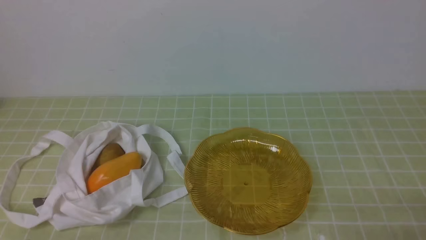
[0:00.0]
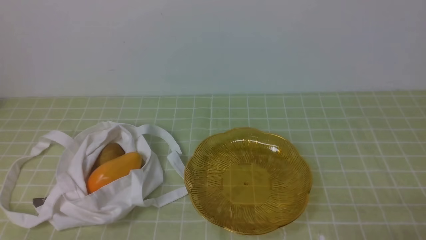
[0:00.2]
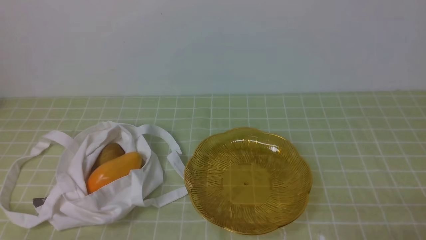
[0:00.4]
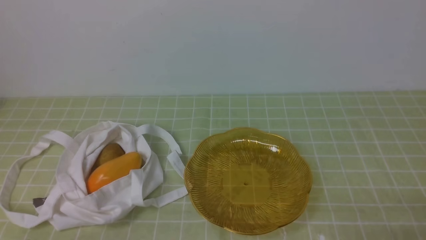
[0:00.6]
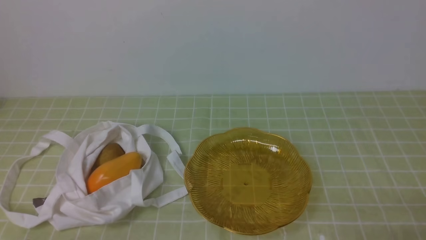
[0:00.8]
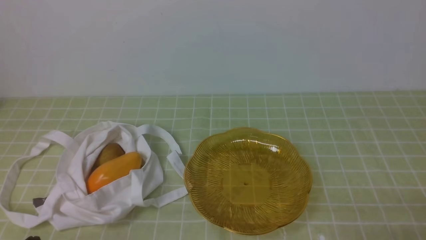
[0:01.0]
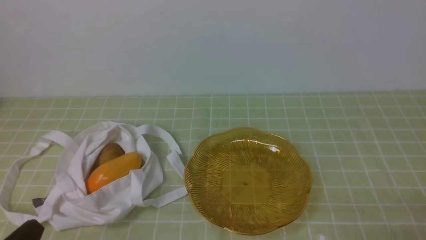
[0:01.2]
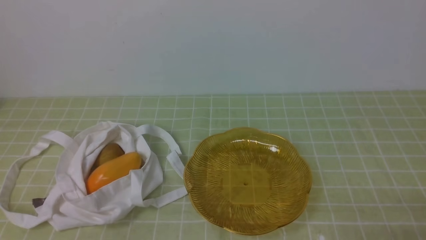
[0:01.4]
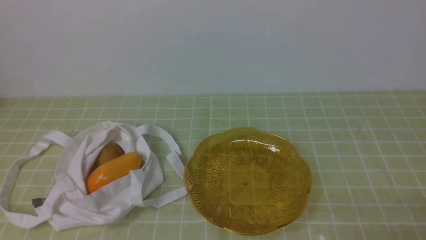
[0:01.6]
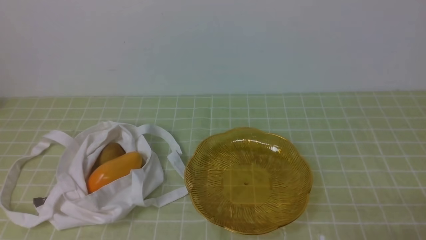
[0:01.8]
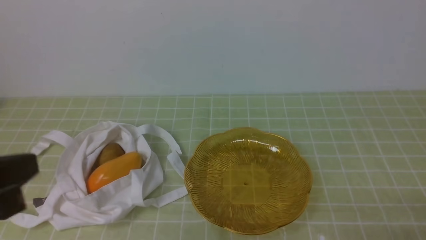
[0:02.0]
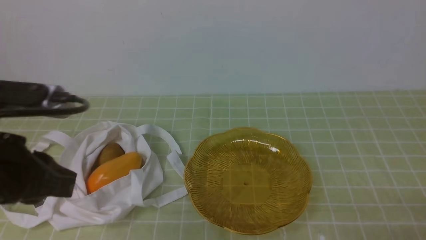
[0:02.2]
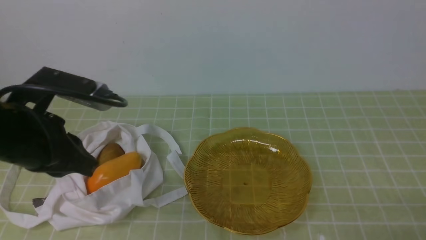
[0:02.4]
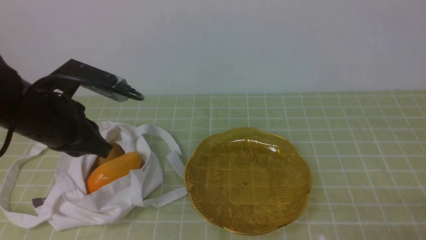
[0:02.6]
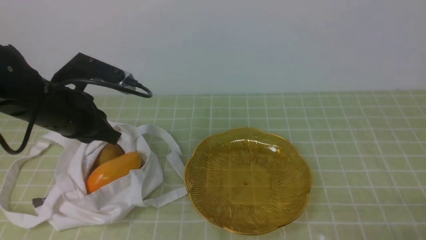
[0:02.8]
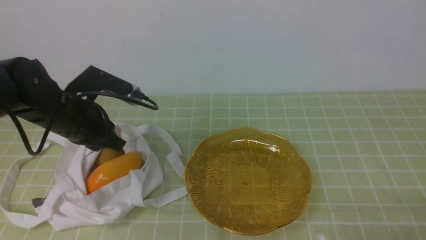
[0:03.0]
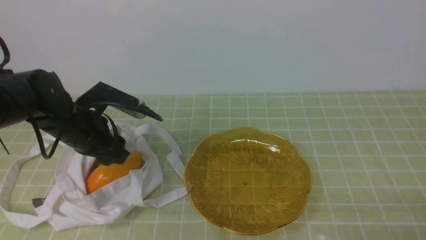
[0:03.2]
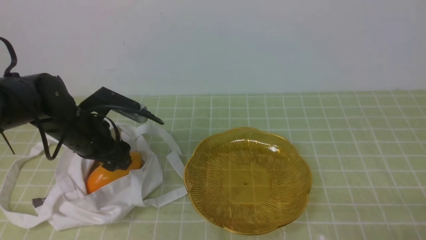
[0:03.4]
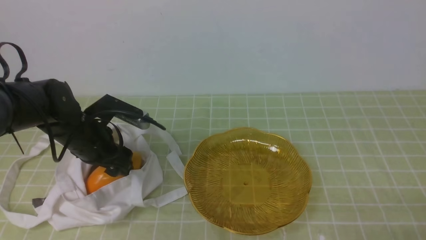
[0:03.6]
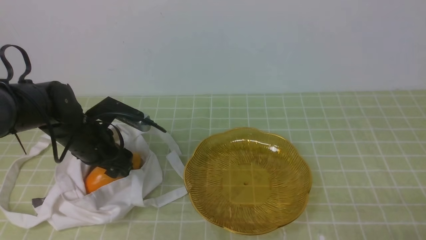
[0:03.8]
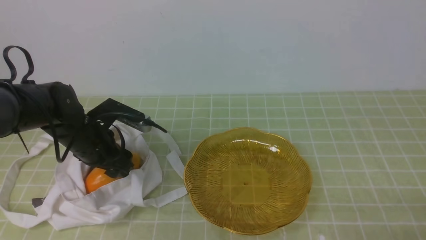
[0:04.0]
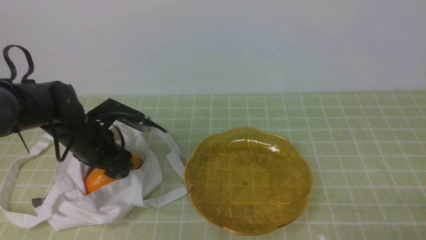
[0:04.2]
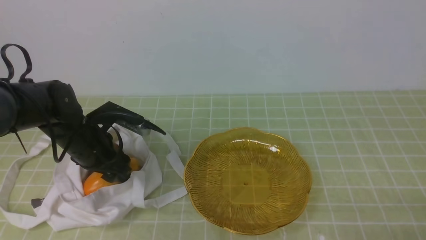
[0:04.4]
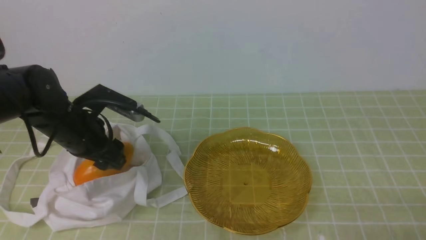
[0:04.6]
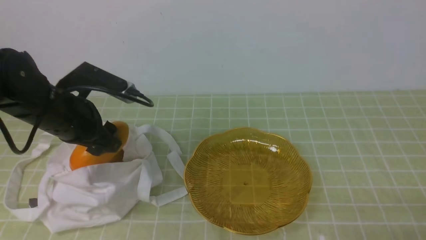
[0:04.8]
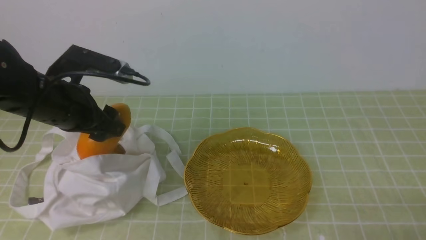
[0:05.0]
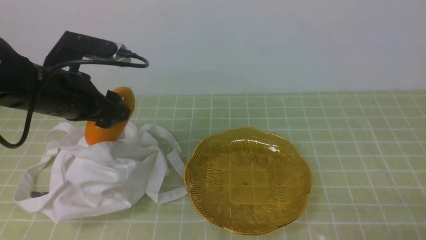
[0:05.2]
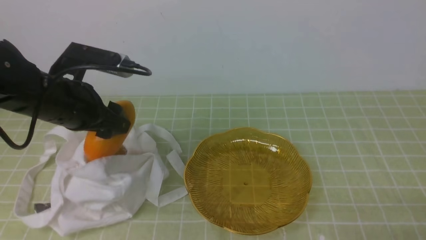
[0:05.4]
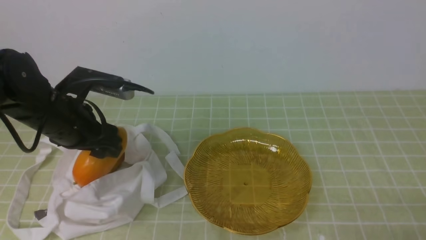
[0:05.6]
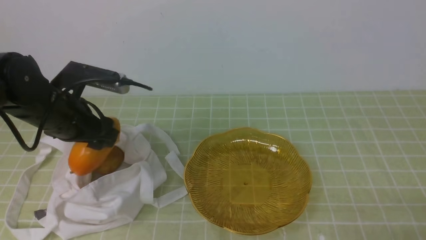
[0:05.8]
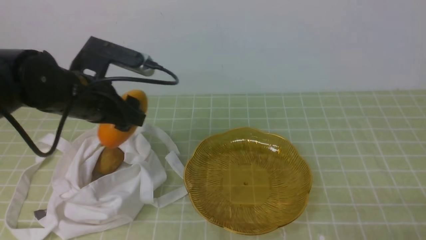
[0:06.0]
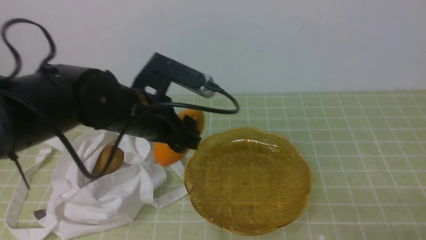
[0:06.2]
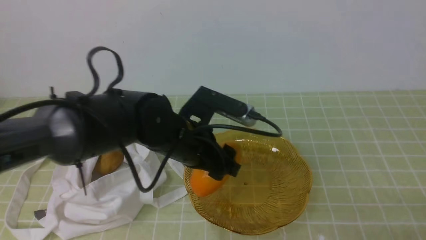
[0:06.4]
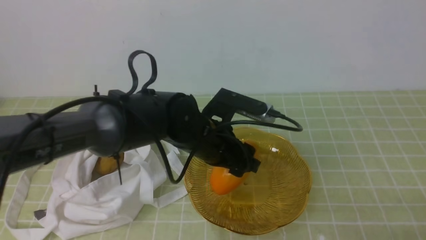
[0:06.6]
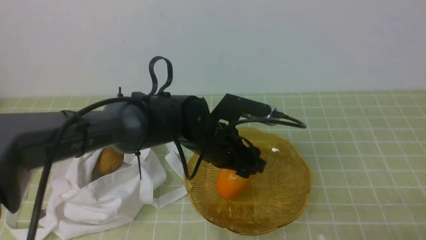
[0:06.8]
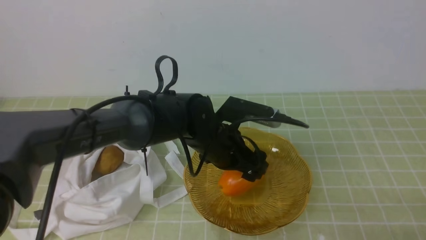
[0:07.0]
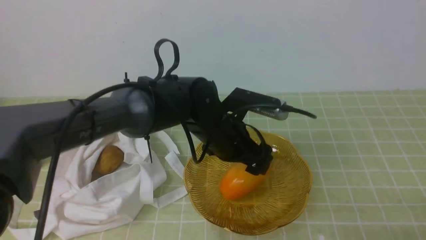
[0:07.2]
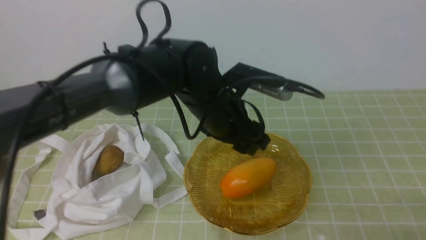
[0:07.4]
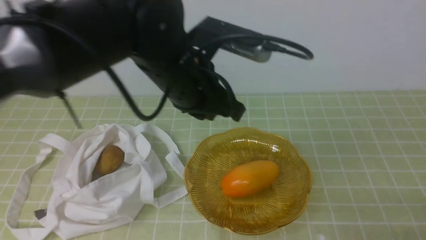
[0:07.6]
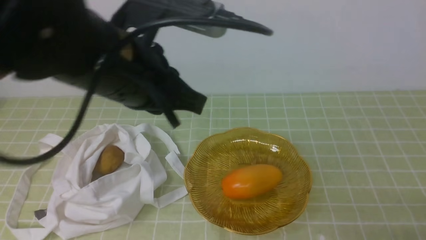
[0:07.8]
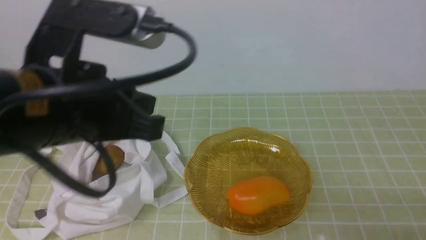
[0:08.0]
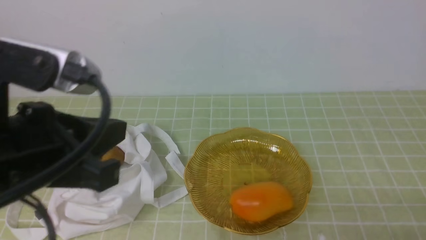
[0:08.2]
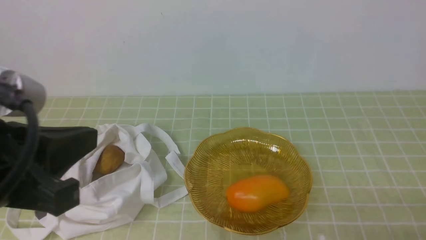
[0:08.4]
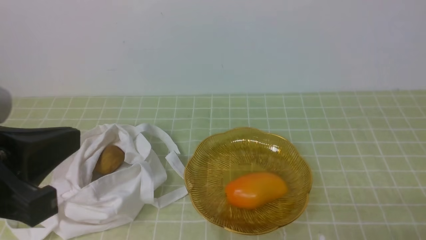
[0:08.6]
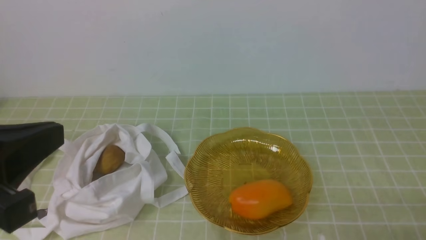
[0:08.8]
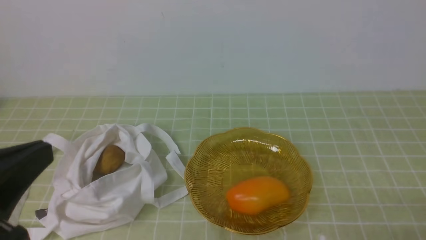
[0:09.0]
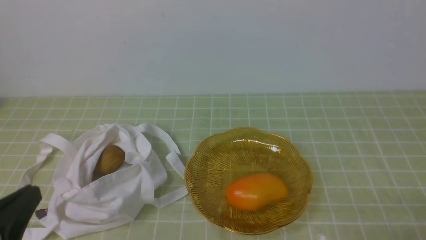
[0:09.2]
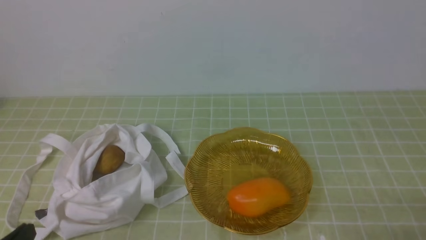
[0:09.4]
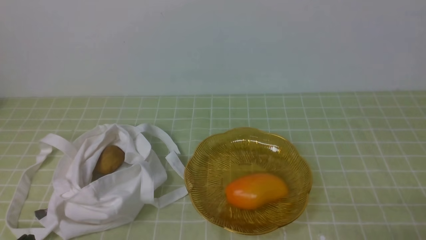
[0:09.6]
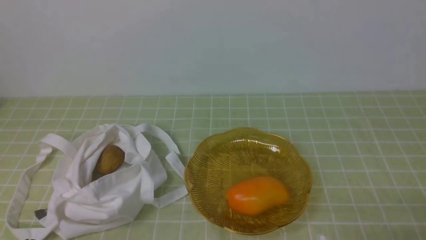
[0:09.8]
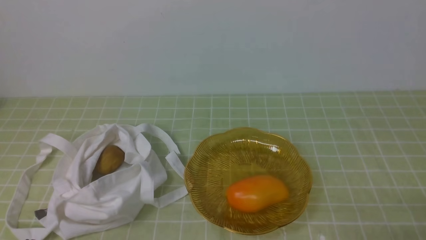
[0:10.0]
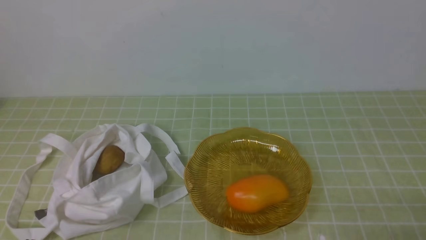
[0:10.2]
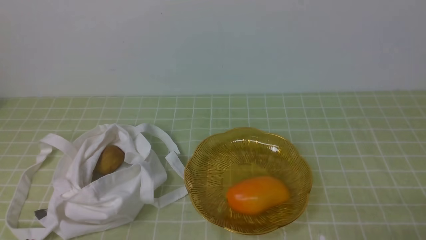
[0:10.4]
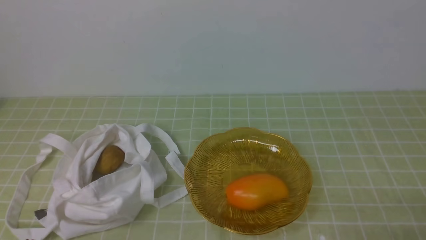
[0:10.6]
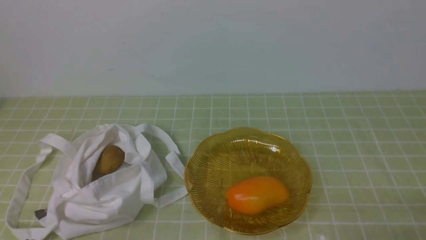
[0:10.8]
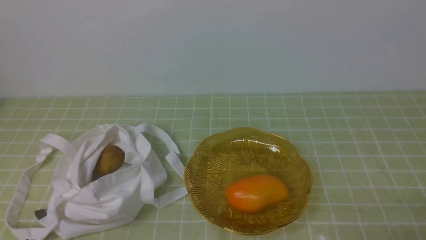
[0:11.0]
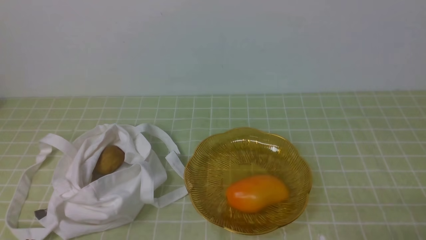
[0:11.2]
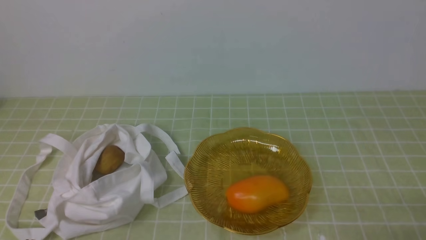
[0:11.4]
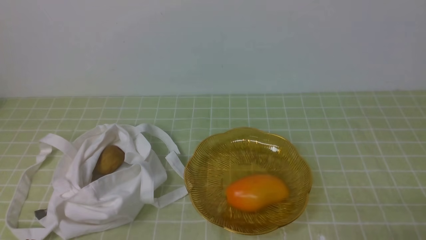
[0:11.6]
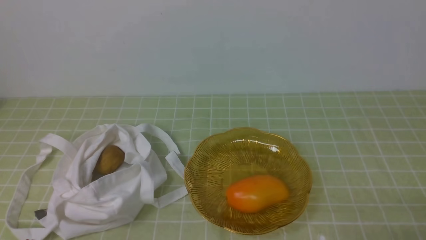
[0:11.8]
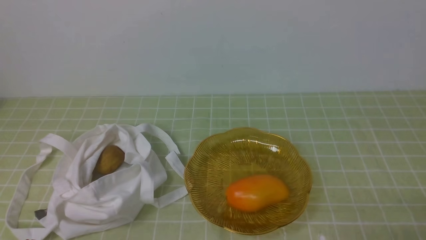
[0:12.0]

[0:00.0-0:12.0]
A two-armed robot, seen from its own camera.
Step, 0:00.0 to 0:04.6: use the left arm to grab a mango from the bag.
Step, 0:04.8 to 0:07.0: use the left arm to put the mango into the empty plate on the right.
0:01.6 to 0:03.0: The left gripper is displaced forward by about 25 cm.
0:03.0 to 0:04.4: The left gripper goes some 10 cm downward, and opens up.
0:04.4 to 0:06.0: The left gripper is displaced upward by roughly 10 cm.
0:06.0 to 0:07.6: The left gripper is displaced to the right by about 15 cm, and closes up.
0:07.6 to 0:09.0: The left gripper heads backward and to the left, covering roughly 30 cm, and closes its fingers.
0:09.0 to 0:10.4: The left gripper is displaced downward by about 20 cm.
0:10.4 to 0:12.0: Both grippers stay put.

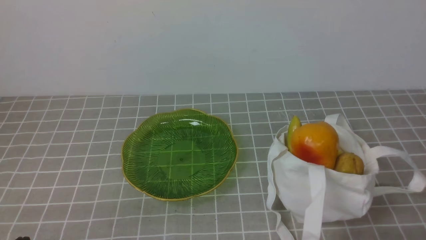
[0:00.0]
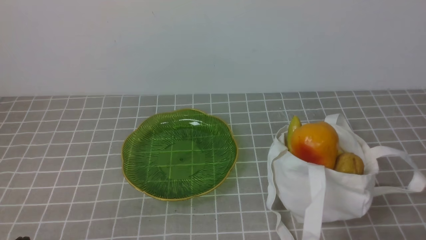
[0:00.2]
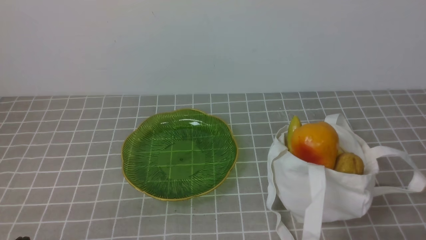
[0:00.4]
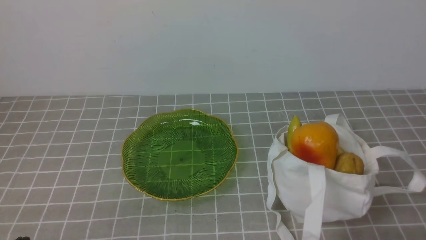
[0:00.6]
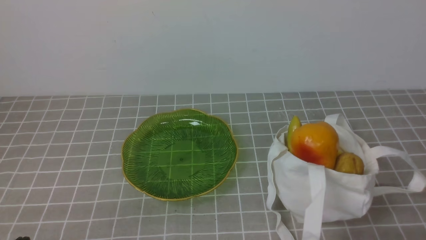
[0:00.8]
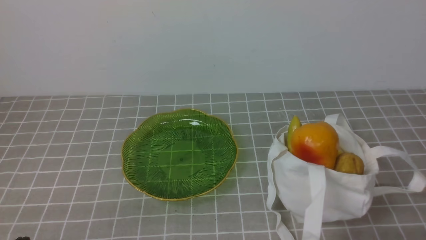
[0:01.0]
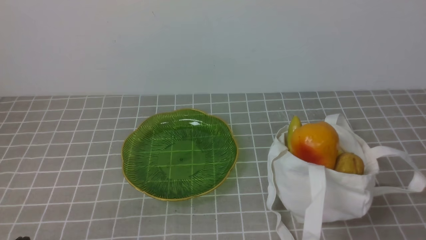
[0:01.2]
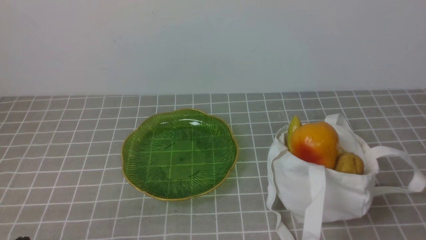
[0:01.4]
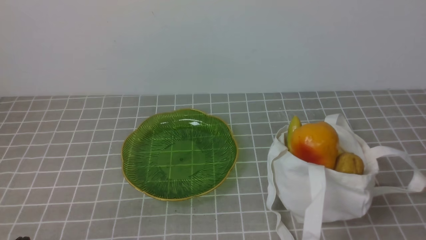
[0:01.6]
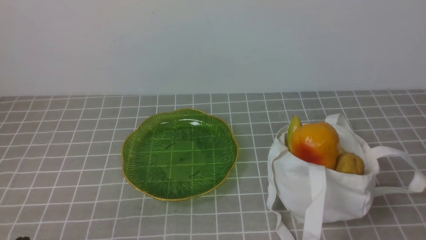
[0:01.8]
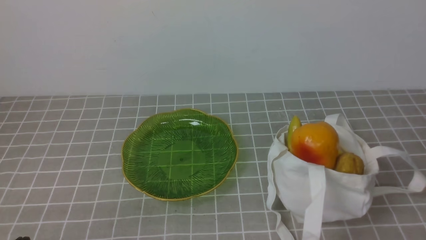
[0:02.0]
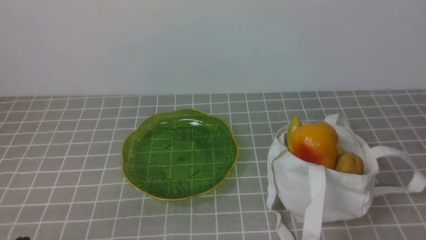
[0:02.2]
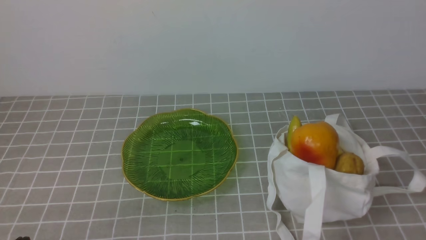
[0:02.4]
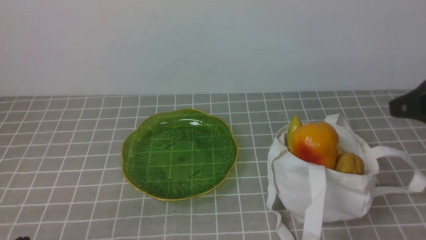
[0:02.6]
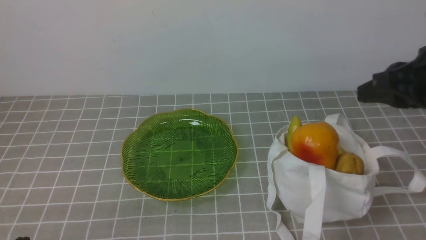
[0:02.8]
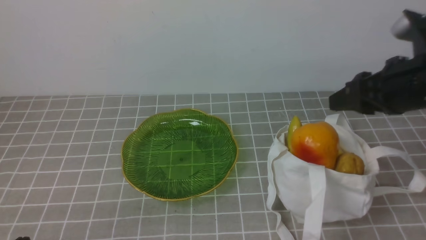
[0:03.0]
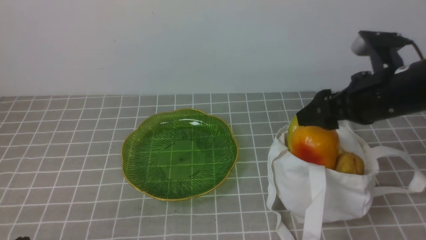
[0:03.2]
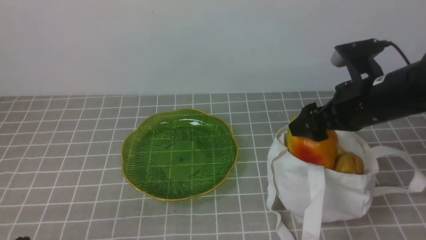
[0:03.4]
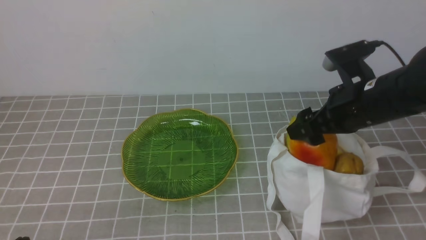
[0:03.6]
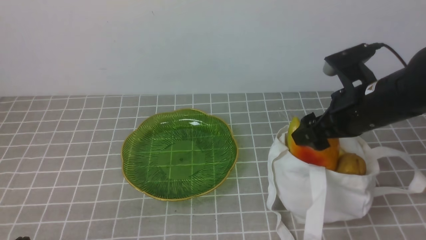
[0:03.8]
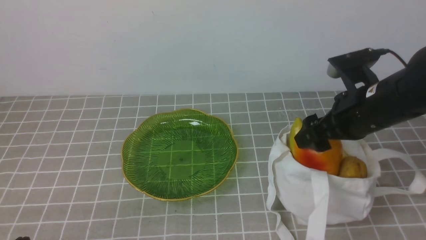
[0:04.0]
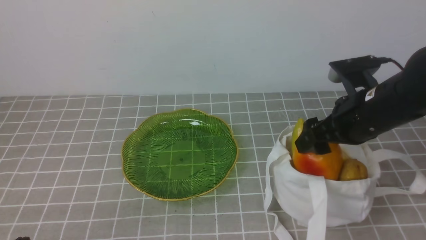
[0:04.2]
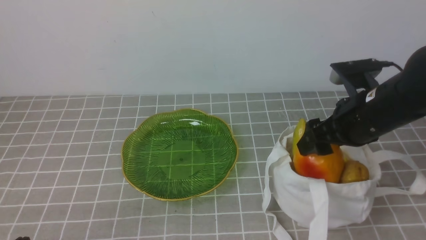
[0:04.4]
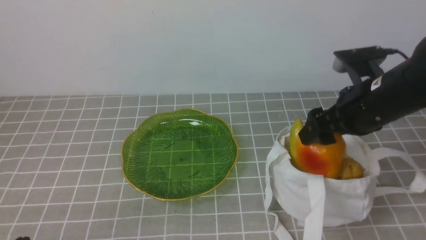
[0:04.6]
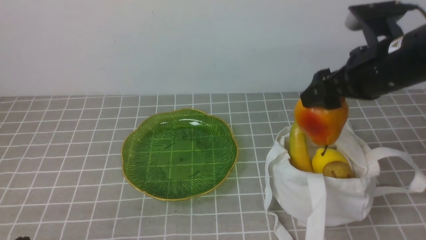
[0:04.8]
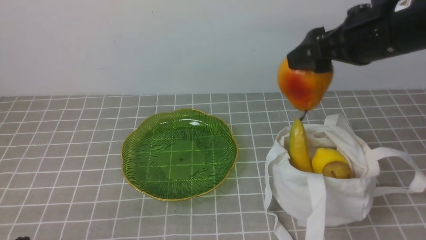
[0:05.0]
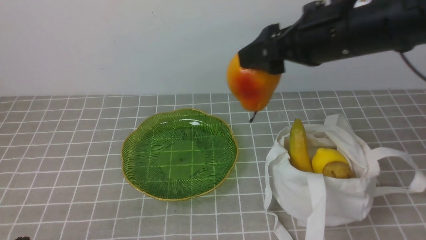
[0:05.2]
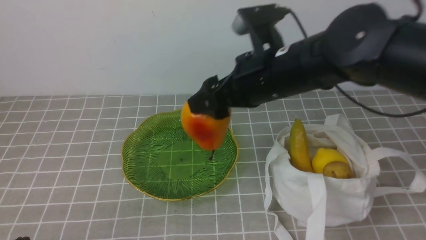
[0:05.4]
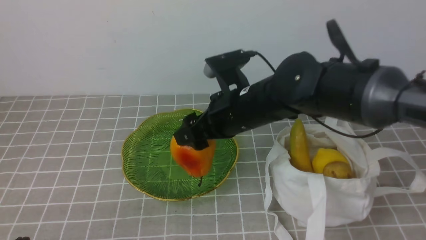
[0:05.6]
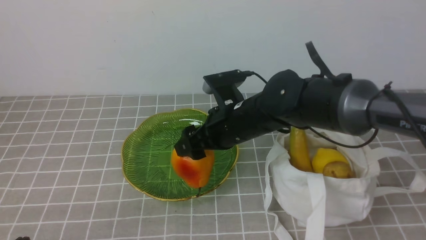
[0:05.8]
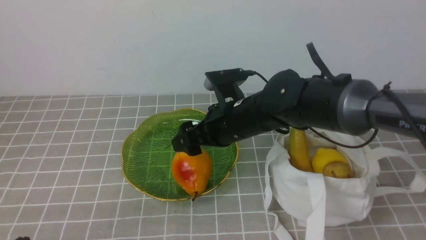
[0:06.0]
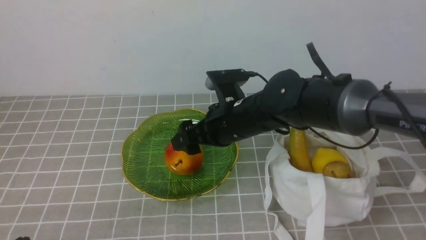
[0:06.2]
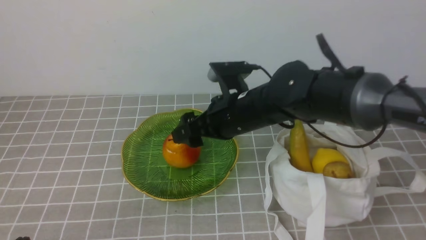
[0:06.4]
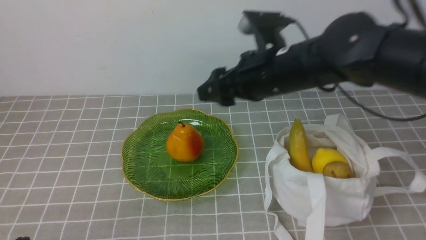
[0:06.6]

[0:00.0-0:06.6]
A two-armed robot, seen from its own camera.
Step, 0:00.0 to 0:04.4: use the right arm to grab a pear from the bag.
Step, 0:04.6 to 0:06.0: use the right arm to put the pear into the empty plate on the left.
0:01.6 to 0:03.2: The right gripper goes about 25 cm forward, and opens up.
0:03.2 to 0:05.0: The right gripper shifts approximately 5 cm upward.
0:05.0 to 0:06.6: The right gripper heads to the left, covering approximately 5 cm, and moves some 15 cm downward and comes back.
